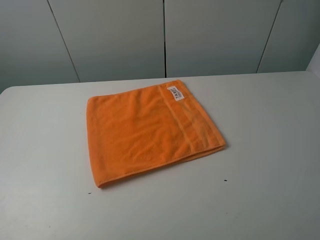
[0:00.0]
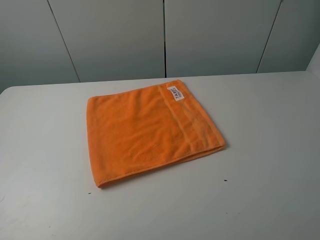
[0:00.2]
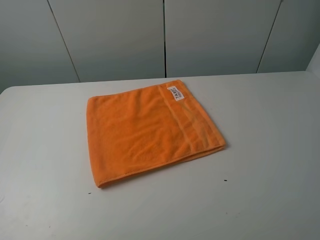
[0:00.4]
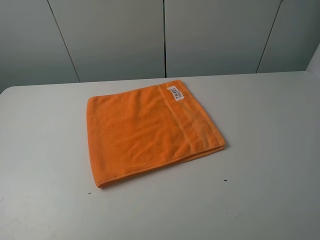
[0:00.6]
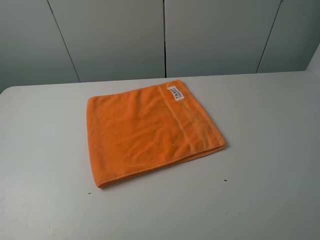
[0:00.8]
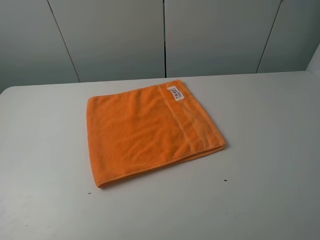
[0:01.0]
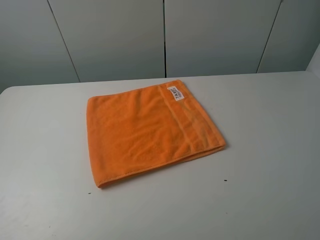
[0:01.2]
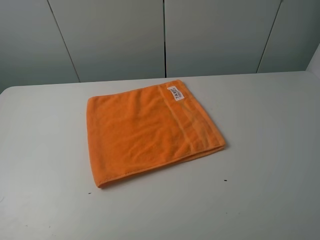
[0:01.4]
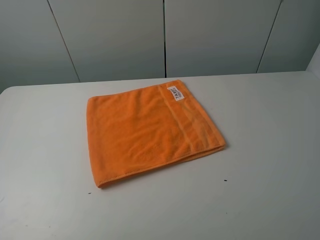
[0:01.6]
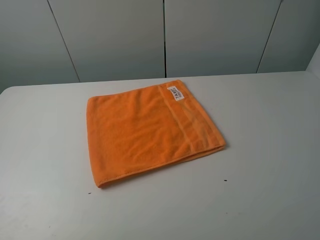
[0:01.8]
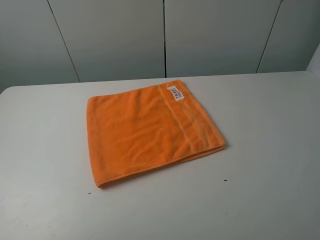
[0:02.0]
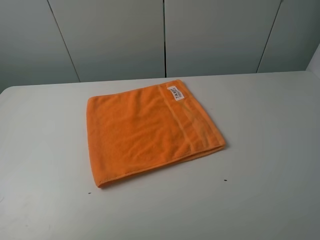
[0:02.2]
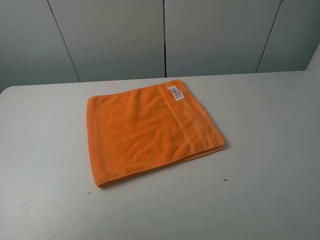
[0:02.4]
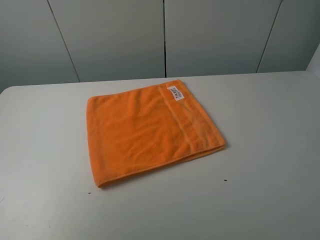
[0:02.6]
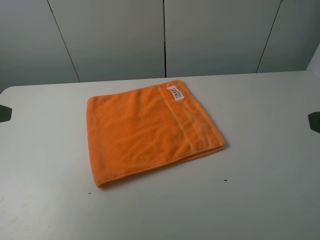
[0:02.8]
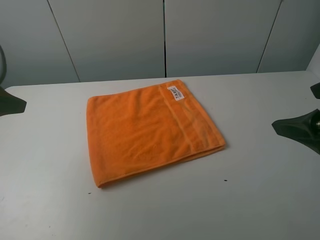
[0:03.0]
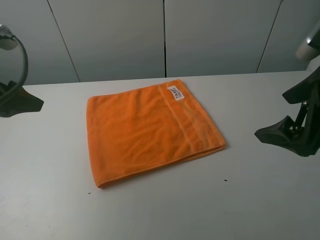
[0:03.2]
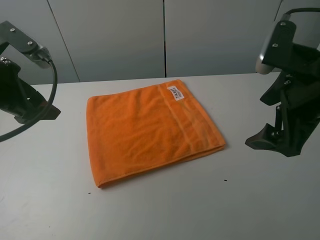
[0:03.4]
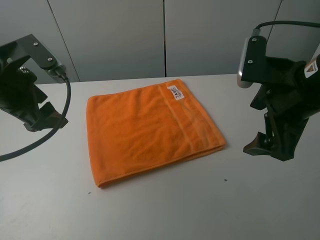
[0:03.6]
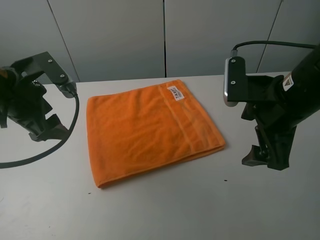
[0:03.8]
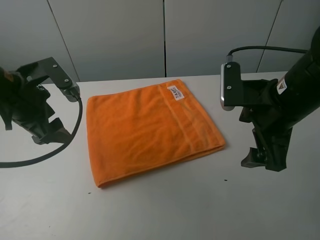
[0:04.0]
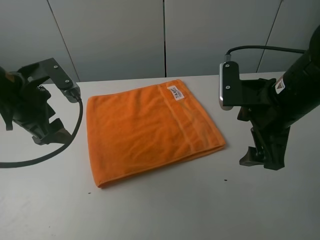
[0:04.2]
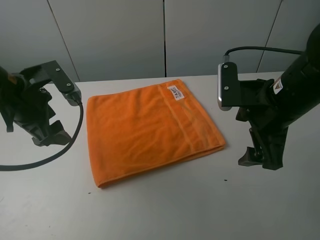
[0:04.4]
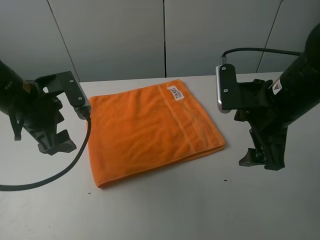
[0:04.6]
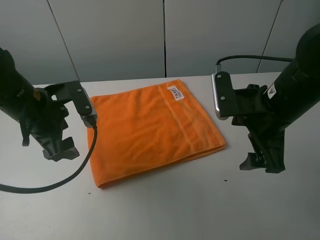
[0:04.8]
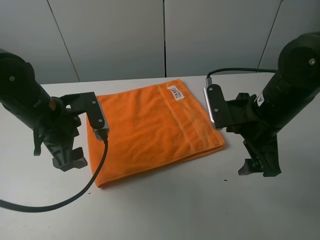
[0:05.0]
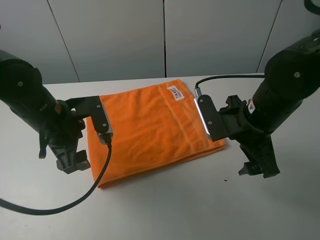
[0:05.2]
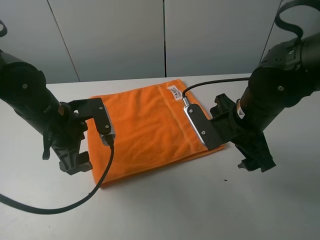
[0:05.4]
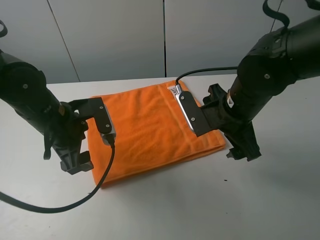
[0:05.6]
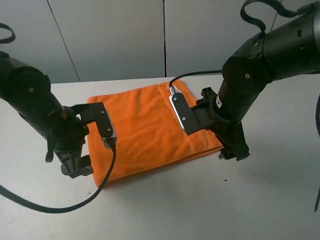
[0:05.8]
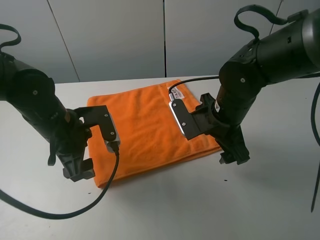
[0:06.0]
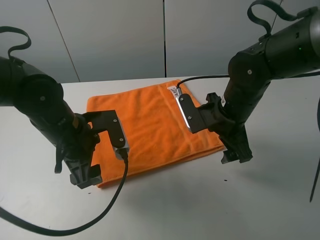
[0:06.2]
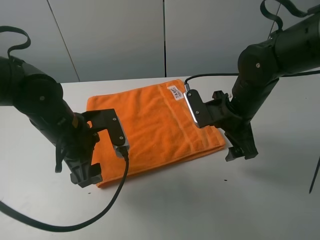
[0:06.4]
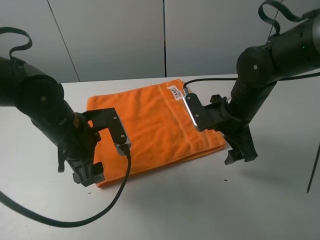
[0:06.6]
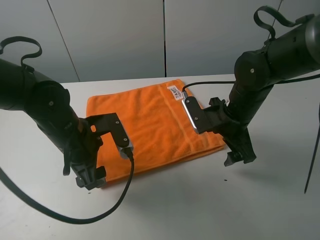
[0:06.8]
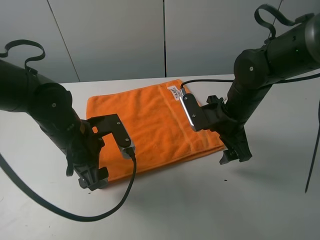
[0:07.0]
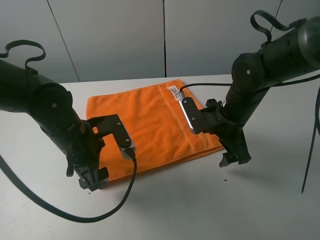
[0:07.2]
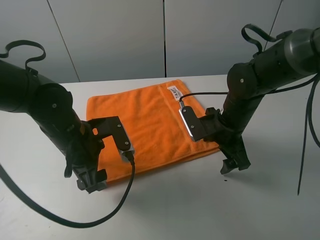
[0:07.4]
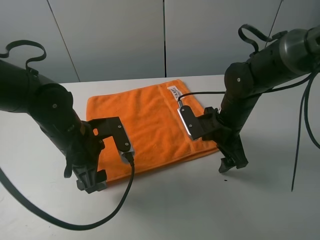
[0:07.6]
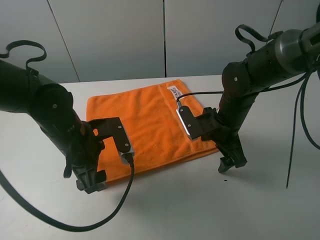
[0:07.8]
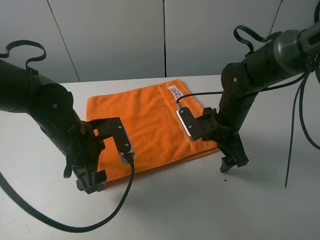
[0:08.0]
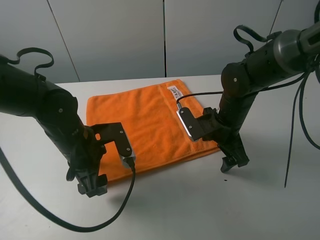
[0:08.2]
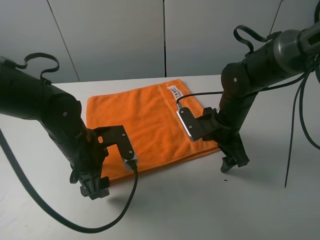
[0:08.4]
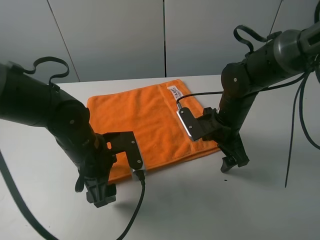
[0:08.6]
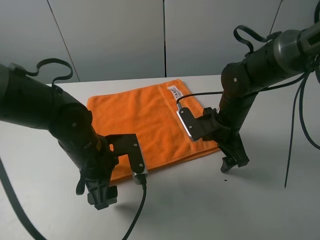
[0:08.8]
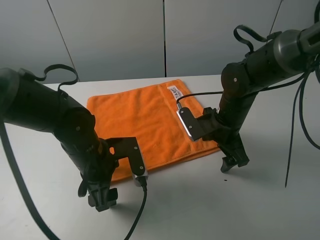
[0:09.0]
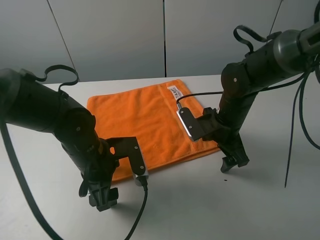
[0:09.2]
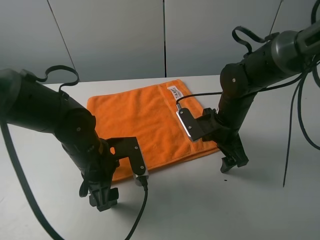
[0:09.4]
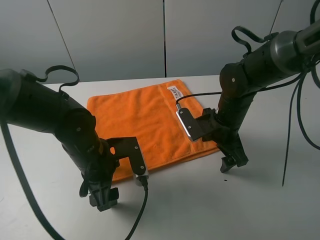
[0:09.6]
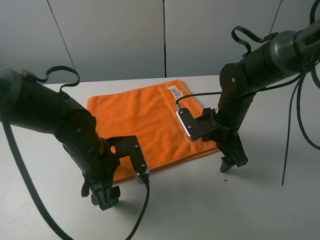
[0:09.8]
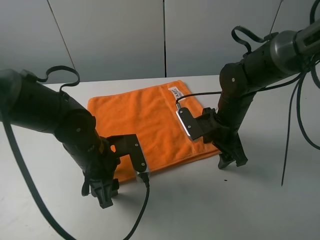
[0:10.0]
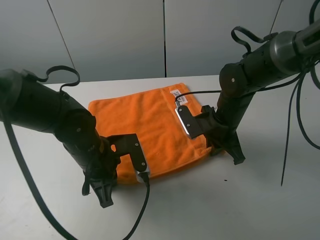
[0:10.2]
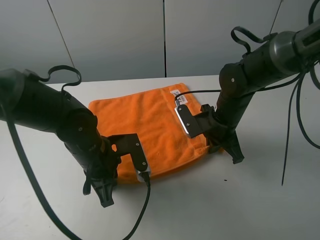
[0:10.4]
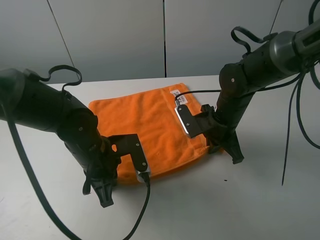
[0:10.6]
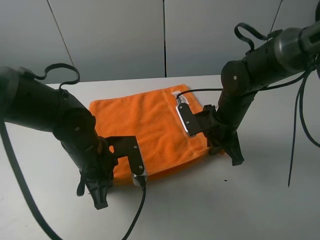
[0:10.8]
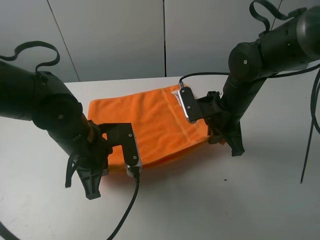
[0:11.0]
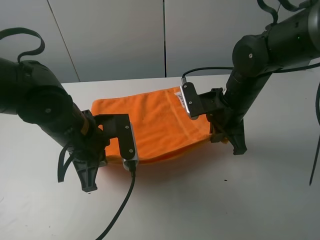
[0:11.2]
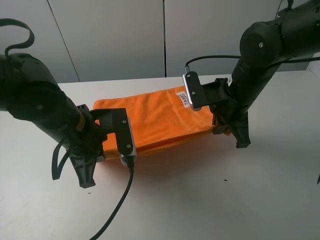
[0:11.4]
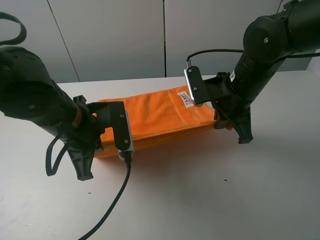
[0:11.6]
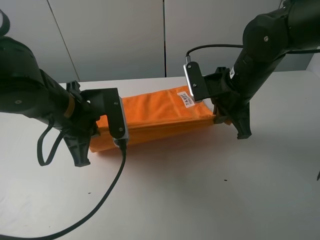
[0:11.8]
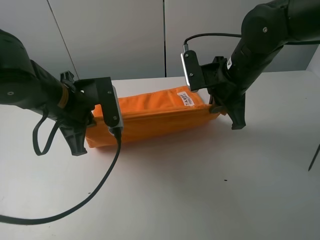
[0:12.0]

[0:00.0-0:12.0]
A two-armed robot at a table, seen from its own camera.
Task of the whole recording: fold the towels on the table.
Step, 0:00.0 to 0:10.4: Grasp the orange towel with the right gripper.
0:00.0 to 0:01.6: Both grippers stay put.
0:01.6 to 0:03.0: Both grippers travel together forward, approximately 15 cm.
0:03.0 to 0:04.4: The left gripper moves to the right, downward and forward, about 10 cm. The right gripper shifts roughly 10 cm forward, to the left and downward.
0:04.4 to 0:06.0: The left gripper moves to the right and downward, some 10 cm, while the right gripper goes roughly 10 cm downward and to the left.
0:06.0 to 0:07.6: The right gripper ends up about 5 cm from where it was.
0:07.6 to 0:09.0: The grippers make only small movements.
0:09.0 to 0:10.4: The right gripper closes its fingers; the left gripper closes up.
0:10.4 to 0:12.0: The grippers both shift upward by some 10 cm.

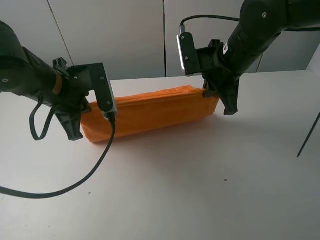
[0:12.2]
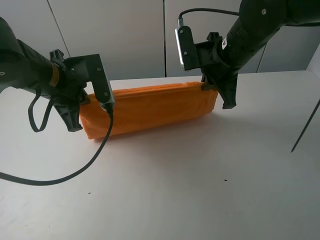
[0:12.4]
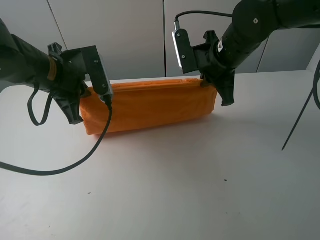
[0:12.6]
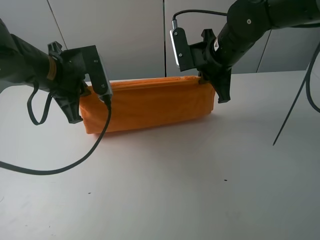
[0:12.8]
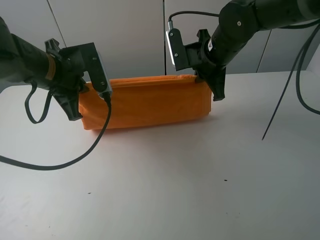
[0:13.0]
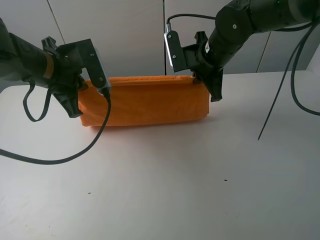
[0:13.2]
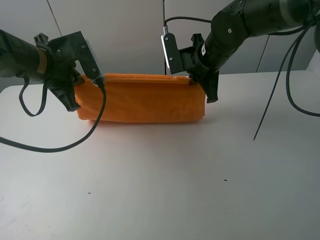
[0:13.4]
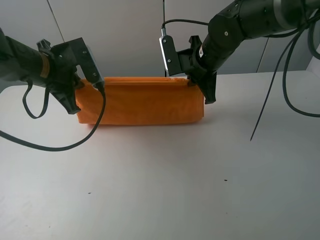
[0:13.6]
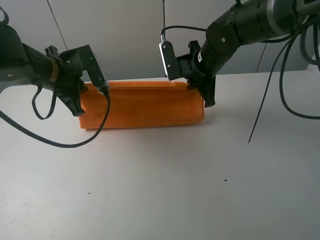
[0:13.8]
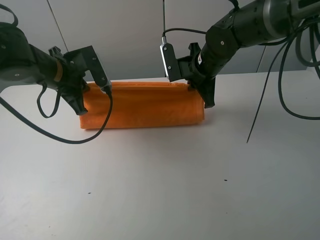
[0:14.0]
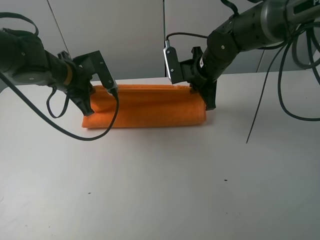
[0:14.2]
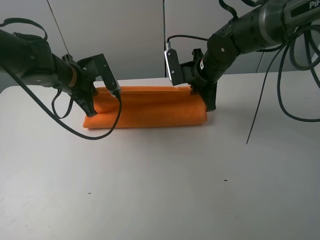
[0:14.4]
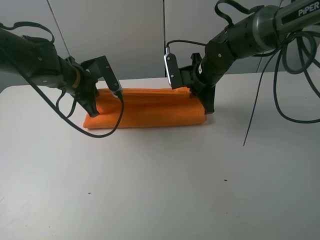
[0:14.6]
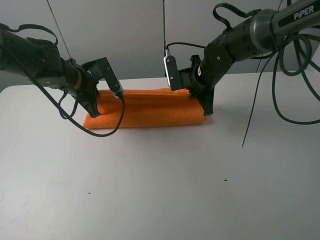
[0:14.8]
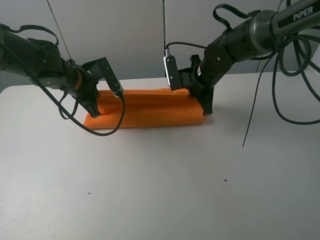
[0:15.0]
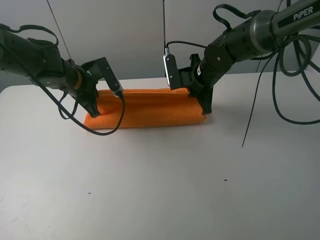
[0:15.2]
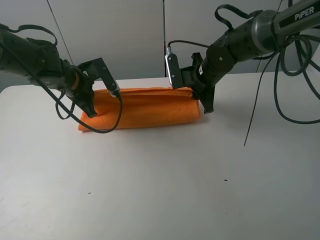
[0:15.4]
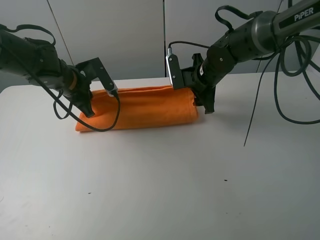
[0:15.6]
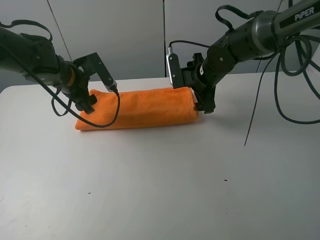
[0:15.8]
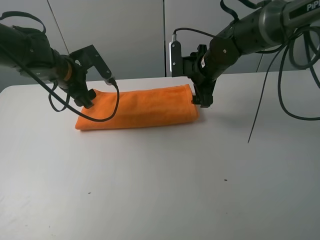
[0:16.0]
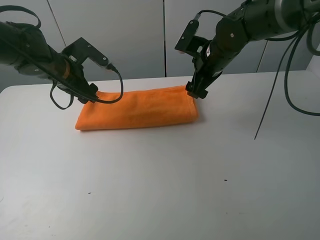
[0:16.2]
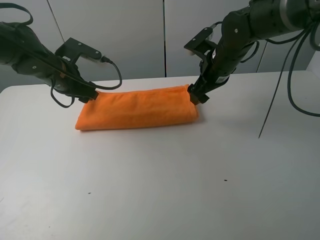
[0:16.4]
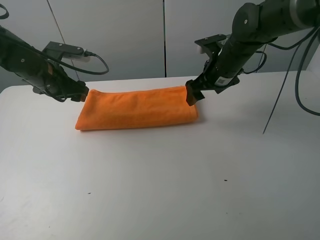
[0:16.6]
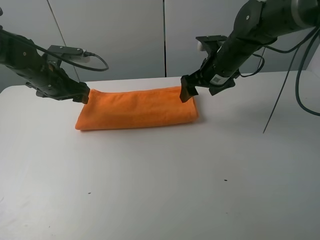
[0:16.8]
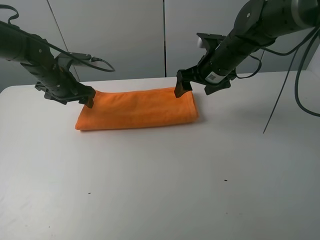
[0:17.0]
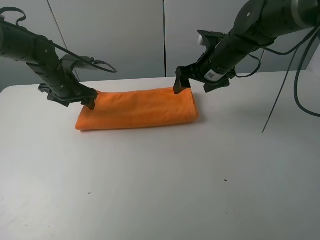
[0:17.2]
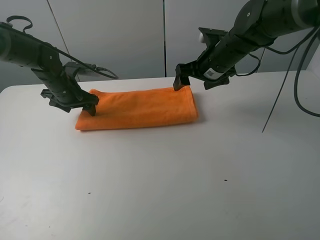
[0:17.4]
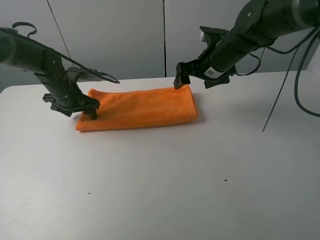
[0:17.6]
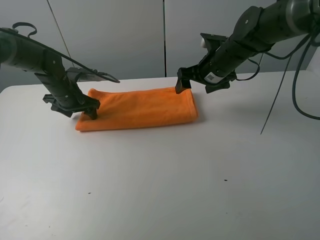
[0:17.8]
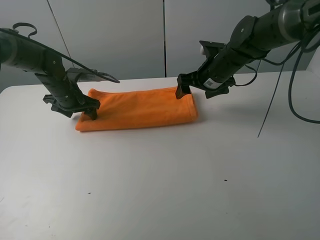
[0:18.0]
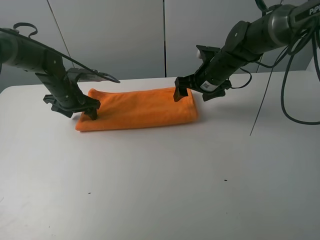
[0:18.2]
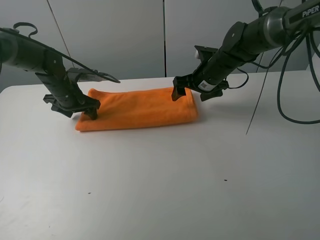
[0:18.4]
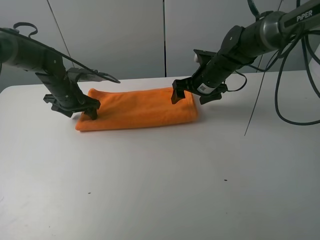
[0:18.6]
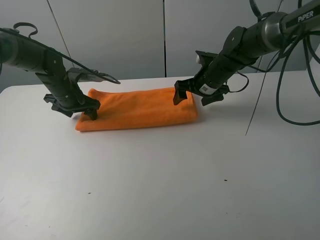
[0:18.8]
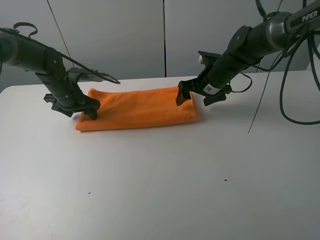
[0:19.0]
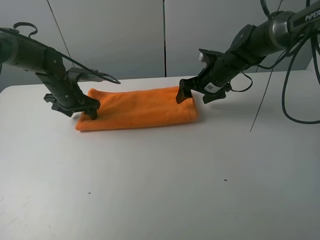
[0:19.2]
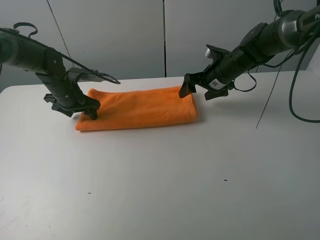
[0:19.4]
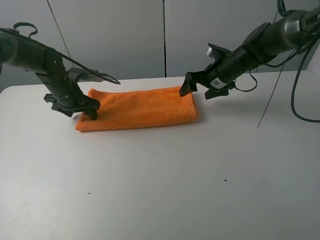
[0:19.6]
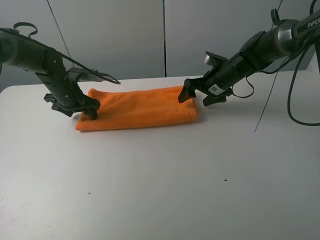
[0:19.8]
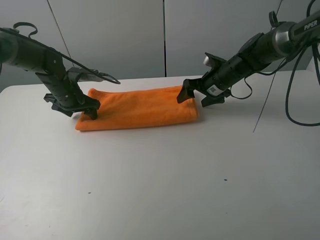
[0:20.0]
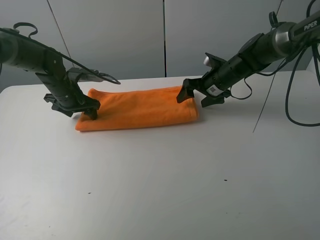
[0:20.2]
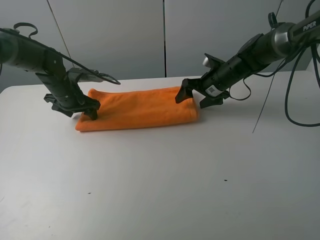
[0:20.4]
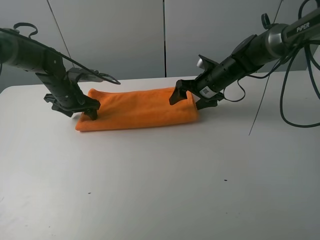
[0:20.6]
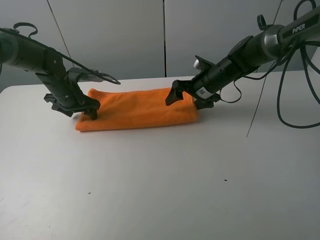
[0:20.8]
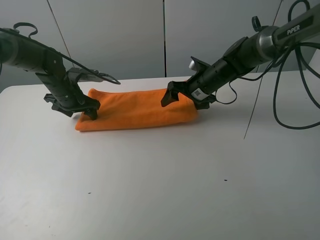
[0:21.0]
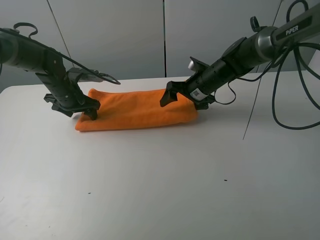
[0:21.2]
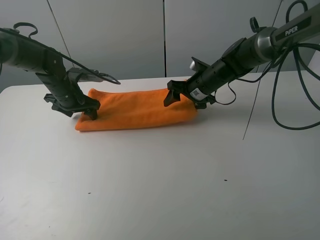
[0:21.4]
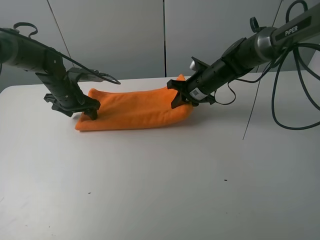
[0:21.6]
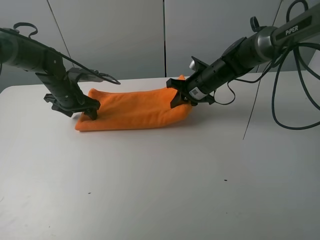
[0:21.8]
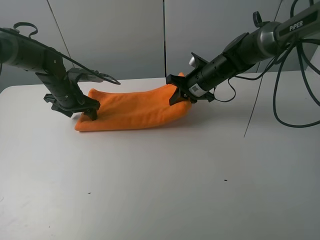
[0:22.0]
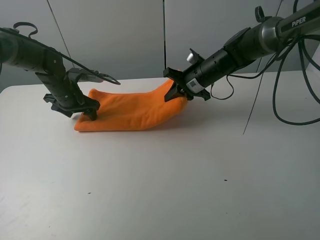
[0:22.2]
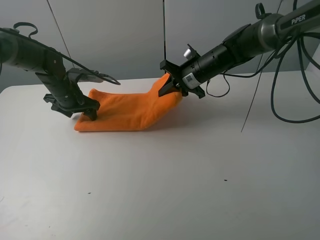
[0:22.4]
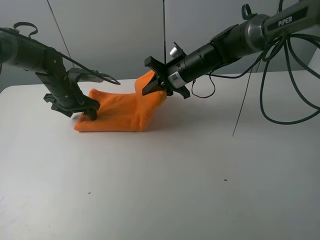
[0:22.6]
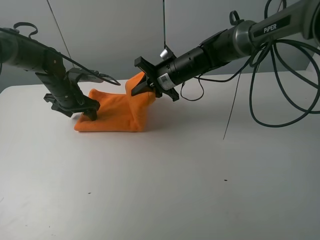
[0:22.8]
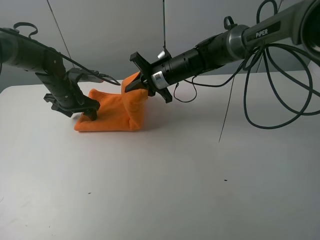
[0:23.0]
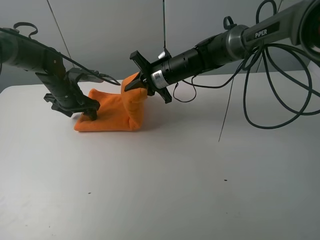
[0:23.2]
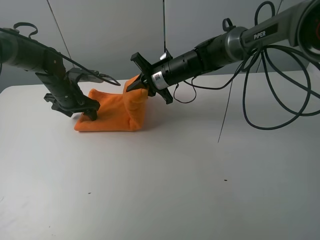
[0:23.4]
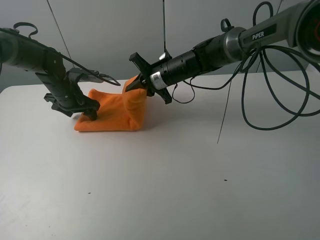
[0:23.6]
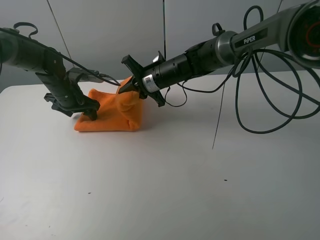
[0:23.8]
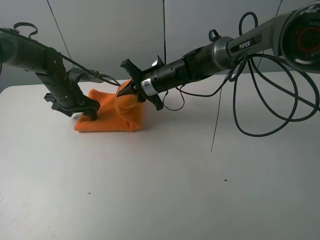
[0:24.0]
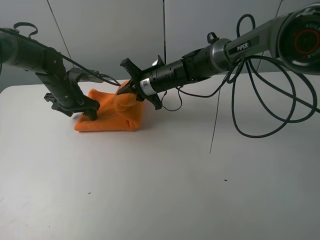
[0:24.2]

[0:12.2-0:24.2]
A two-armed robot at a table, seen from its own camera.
Task of the whole recording: fold the towels on the table.
Step, 0:12.2 to 0:15.6: Fold the orange towel upwards with the right gripper.
Step, 0:16.0 to 0:17.6: Press on the orange towel with the left gripper.
0:12.2 to 0:13.8: Both grippers move forward, approximately 5 cm.
0:13.8 to 0:15.2: The left gripper changes place by some 5 cm.
0:15.2 to 0:16.6: The right gripper ends up about 5 cm from where it was, and opens its fingers. The left gripper travels to the left by approximately 5 cm, and opens its fingers.
0:16.6 to 0:18.2: The left gripper travels downward by some 5 cm.
0:18.2 to 0:19.8: The right gripper shifts by roughly 5 cm.
0:19.8 to 0:21.2: The grippers move only a little.
0:21.2 to 0:22.6: The right gripper travels to the left by some 5 cm, and closes up.
0:22.6 to 0:24.2: The right gripper moves to the left, roughly 5 cm.
